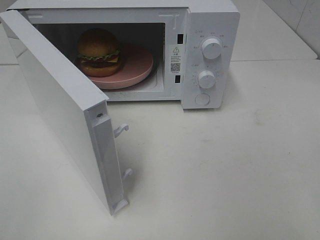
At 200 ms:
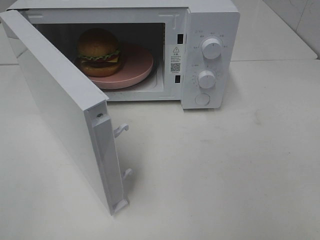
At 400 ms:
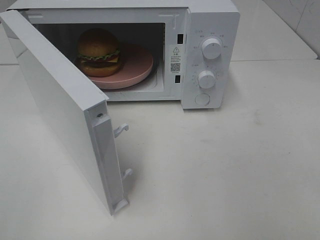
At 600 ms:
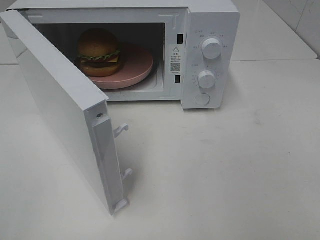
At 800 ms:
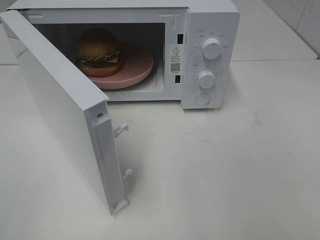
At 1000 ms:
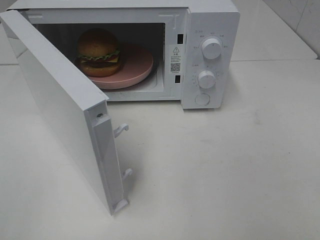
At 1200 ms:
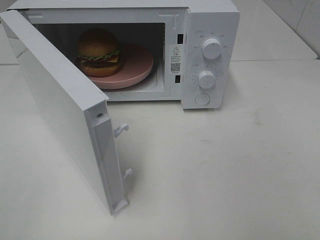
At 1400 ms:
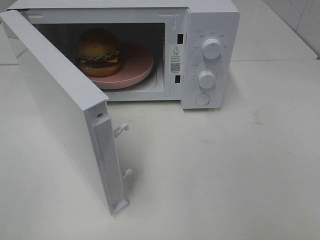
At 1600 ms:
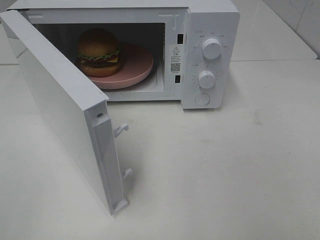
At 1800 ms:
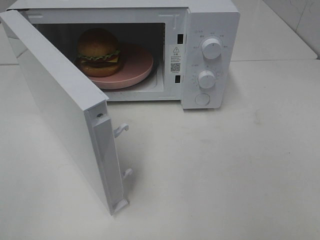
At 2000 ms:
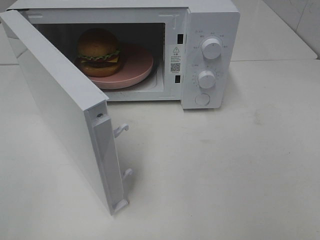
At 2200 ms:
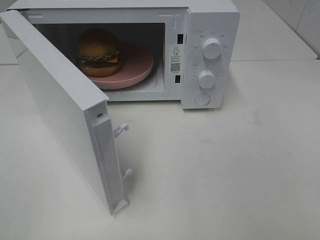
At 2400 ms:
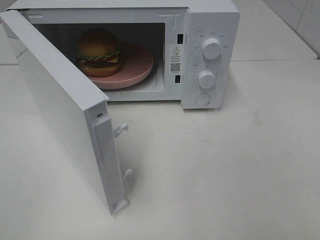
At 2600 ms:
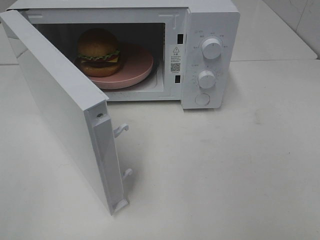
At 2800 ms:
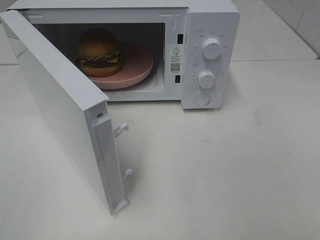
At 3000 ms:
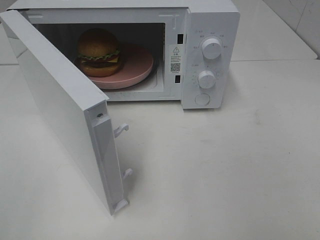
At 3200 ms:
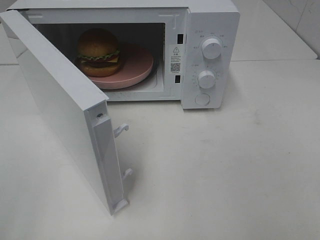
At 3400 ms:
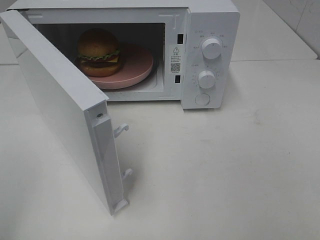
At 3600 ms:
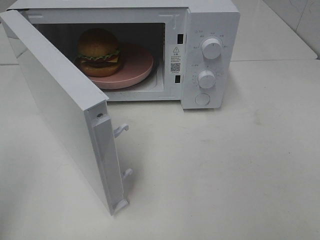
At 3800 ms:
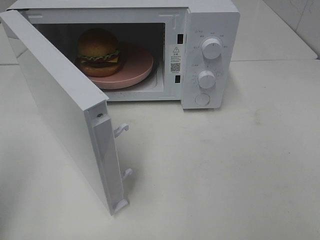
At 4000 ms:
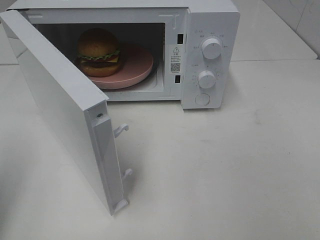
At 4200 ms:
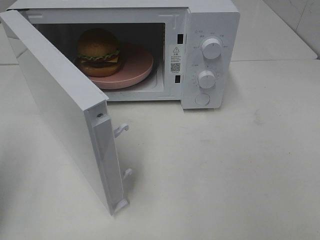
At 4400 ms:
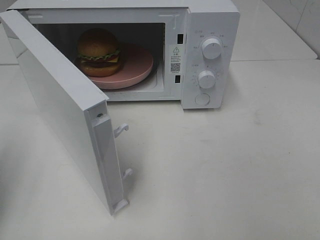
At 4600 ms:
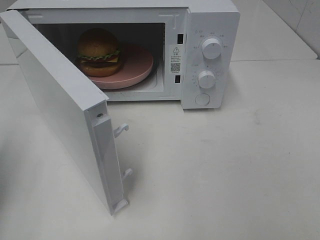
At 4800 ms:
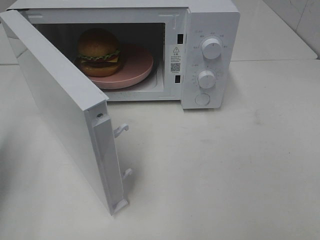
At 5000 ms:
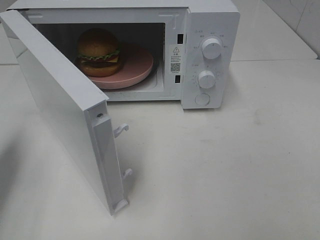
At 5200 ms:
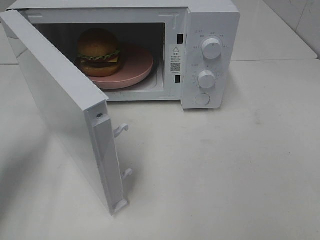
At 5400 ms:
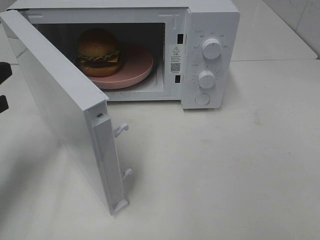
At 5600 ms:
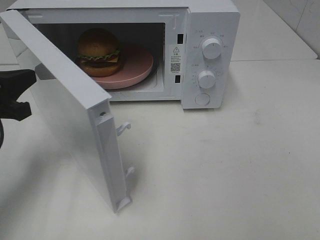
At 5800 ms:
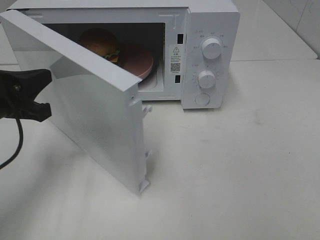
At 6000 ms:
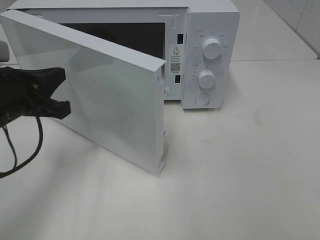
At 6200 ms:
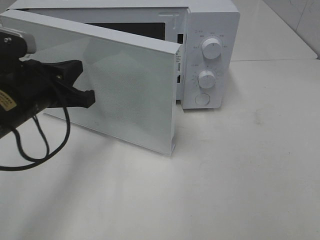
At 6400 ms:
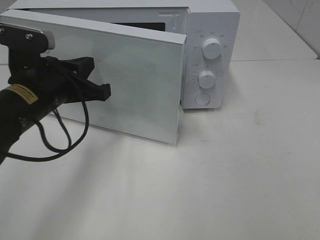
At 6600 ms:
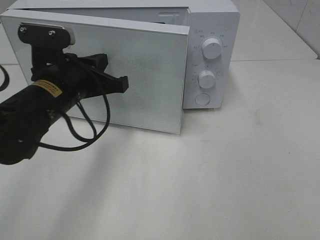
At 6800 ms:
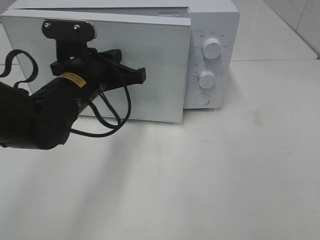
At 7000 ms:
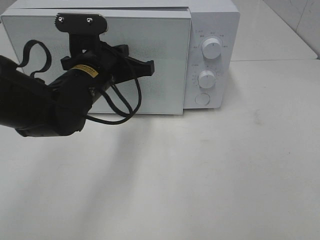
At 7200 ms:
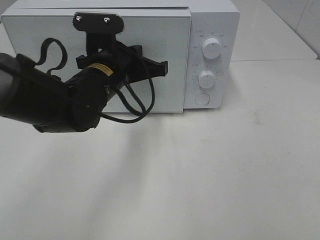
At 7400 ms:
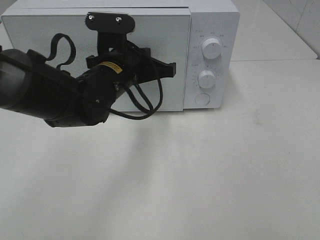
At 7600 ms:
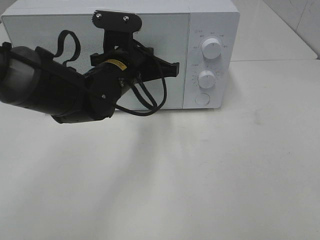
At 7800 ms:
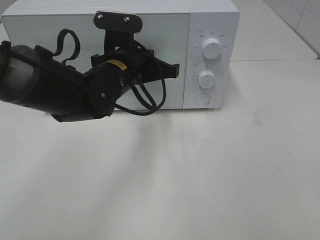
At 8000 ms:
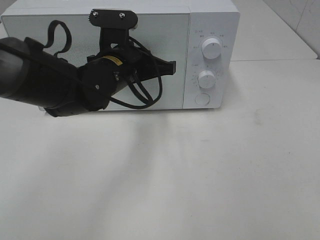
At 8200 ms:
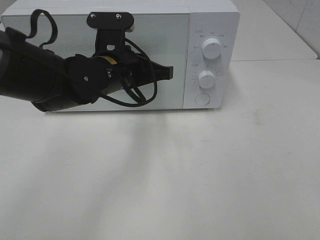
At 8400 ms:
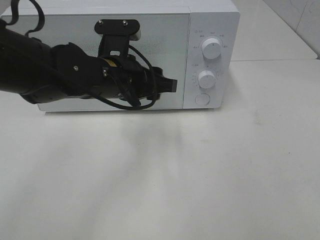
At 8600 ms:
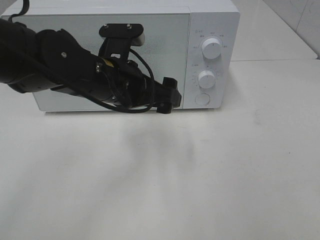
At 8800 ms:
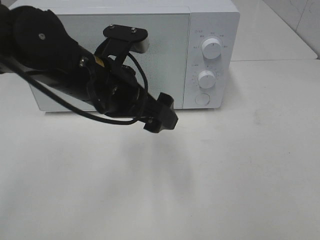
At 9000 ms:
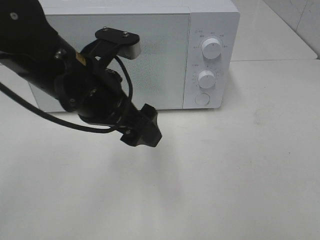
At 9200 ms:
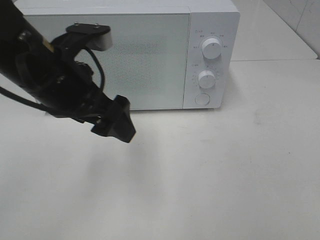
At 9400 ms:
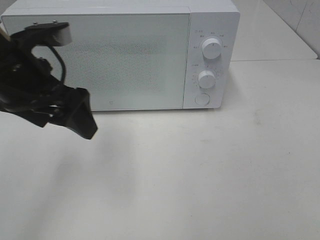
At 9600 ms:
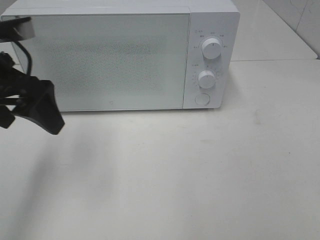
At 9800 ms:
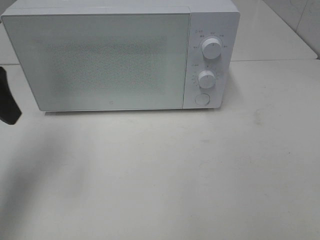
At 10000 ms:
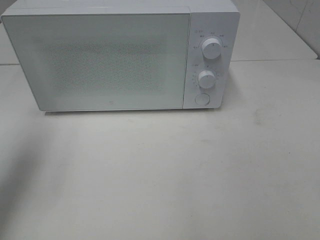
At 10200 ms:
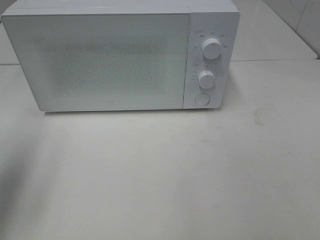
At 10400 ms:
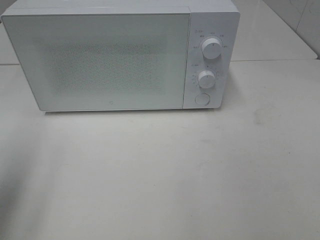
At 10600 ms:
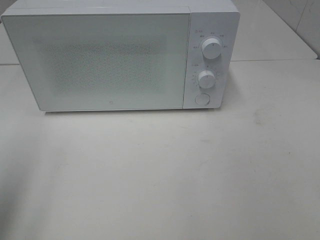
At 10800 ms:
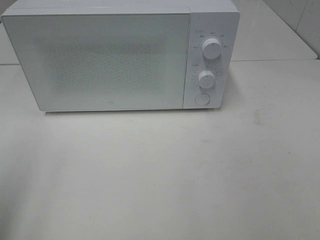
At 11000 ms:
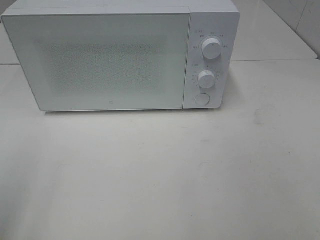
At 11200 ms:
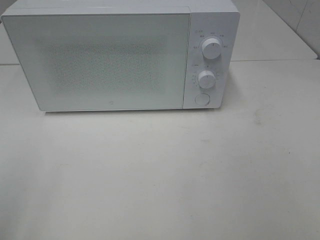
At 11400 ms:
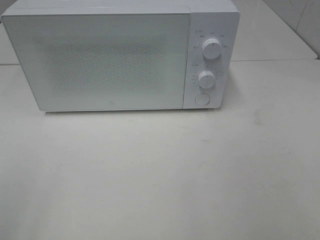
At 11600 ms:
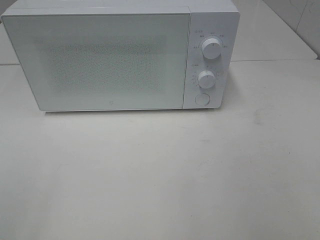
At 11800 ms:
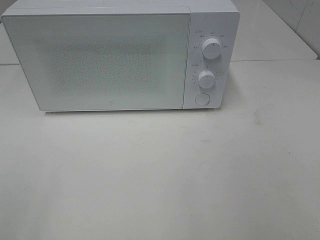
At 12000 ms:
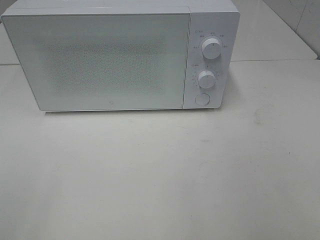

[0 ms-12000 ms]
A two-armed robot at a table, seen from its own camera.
Task of the whole recording: Heat the burger.
Step, 0 ms to 8400 ms: Left hand: close the microwave door.
1600 ms to 3000 ms: Both grippers stay about where they are.
3000 ms to 4400 ms: The left gripper goes some 15 cm forward, and closes its fingers.
4400 ms to 6000 ms: The left gripper shifts about 15 cm to the right, forward and downward.
6000 ms to 7600 ms: The left gripper shifts approximately 20 cm to the right and forward.
7600 ms to 9000 ms: The left gripper moves backward and upward, roughly 10 cm, and opens its fingers.
9000 ms to 10400 ms: The left gripper heads to the left, covering approximately 25 cm.
10400 ms to 12000 ms: The left gripper moves backward, some 15 cm.

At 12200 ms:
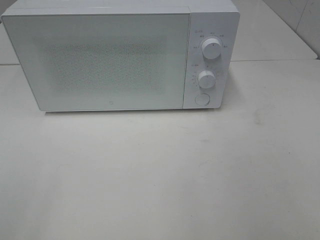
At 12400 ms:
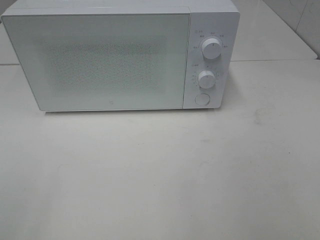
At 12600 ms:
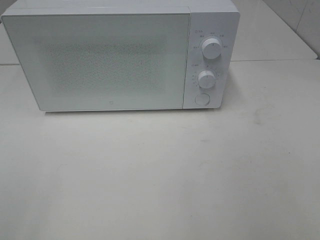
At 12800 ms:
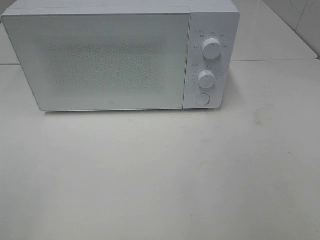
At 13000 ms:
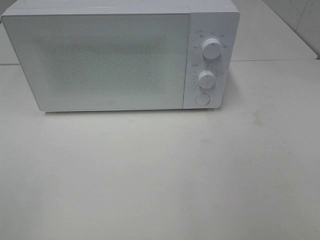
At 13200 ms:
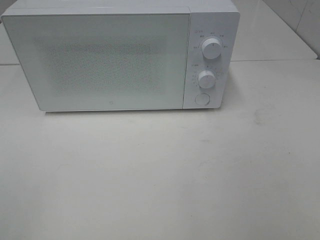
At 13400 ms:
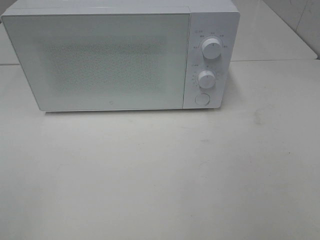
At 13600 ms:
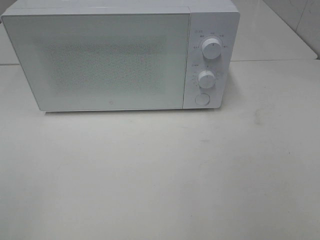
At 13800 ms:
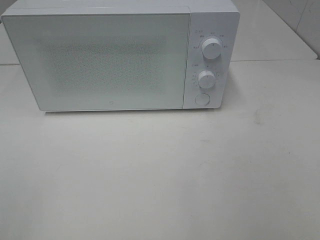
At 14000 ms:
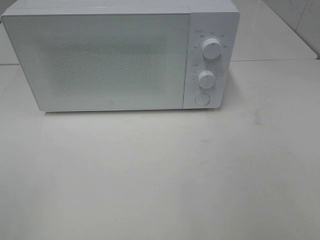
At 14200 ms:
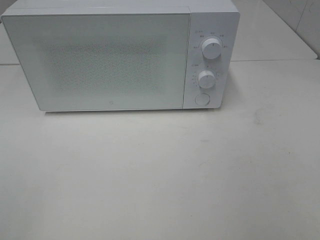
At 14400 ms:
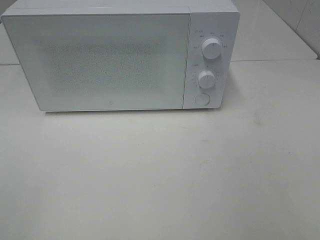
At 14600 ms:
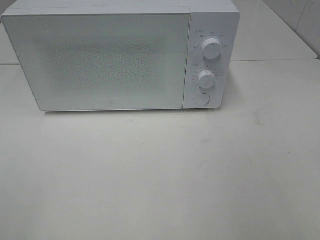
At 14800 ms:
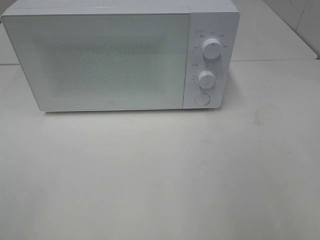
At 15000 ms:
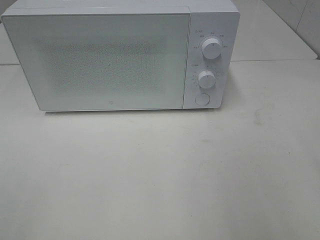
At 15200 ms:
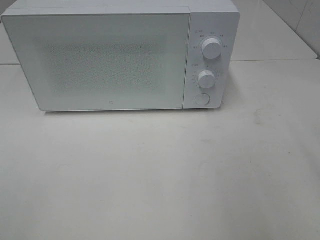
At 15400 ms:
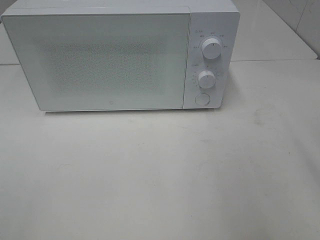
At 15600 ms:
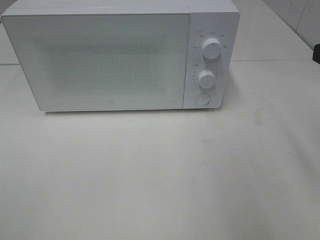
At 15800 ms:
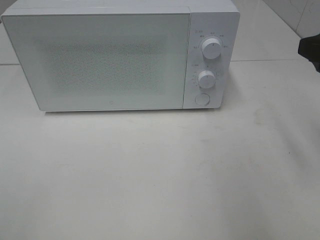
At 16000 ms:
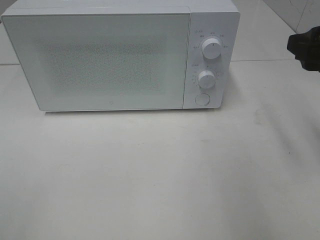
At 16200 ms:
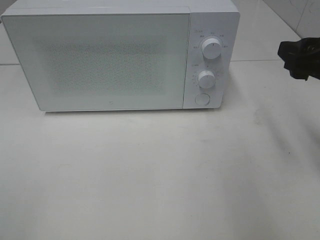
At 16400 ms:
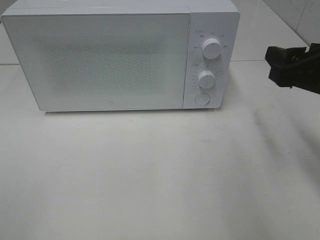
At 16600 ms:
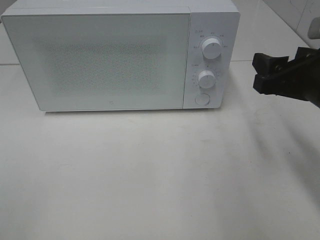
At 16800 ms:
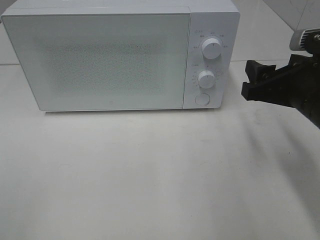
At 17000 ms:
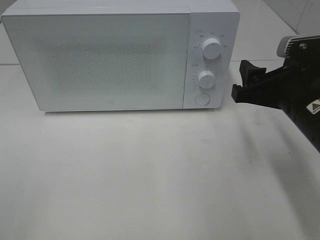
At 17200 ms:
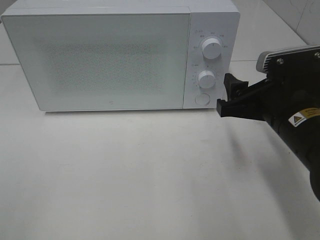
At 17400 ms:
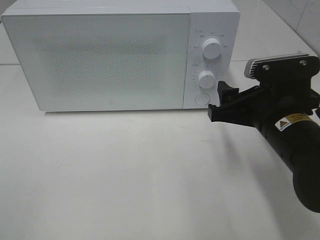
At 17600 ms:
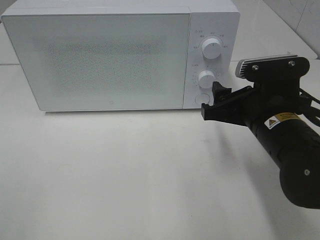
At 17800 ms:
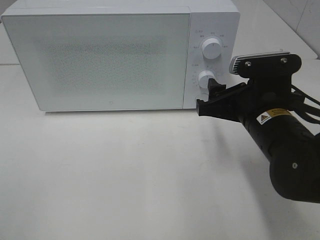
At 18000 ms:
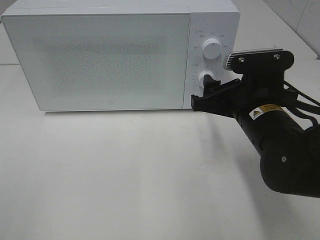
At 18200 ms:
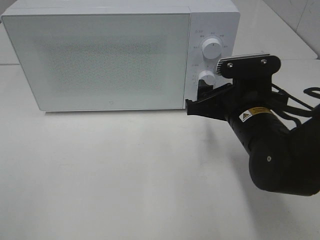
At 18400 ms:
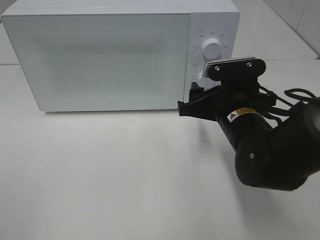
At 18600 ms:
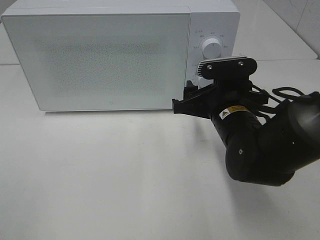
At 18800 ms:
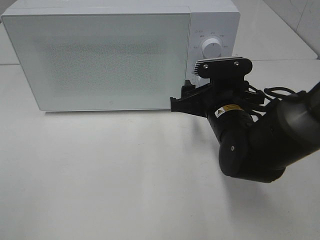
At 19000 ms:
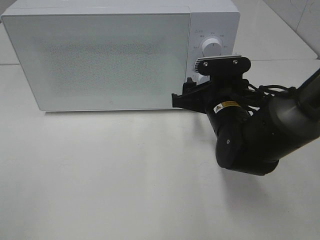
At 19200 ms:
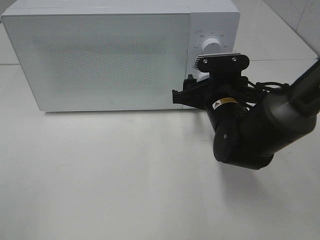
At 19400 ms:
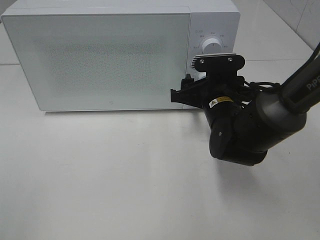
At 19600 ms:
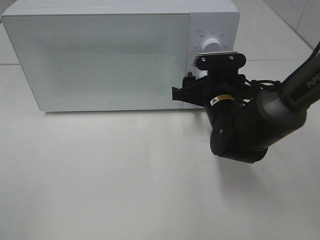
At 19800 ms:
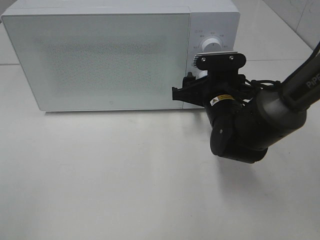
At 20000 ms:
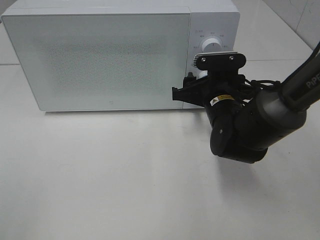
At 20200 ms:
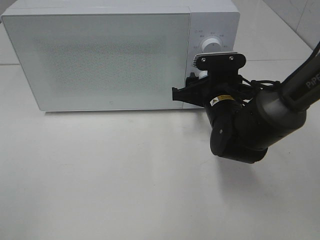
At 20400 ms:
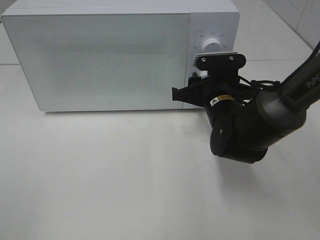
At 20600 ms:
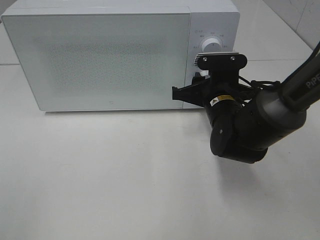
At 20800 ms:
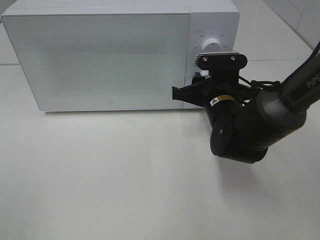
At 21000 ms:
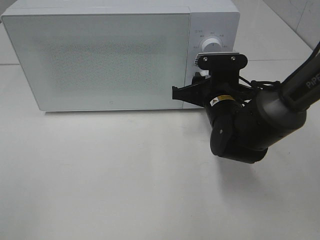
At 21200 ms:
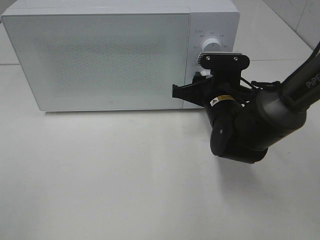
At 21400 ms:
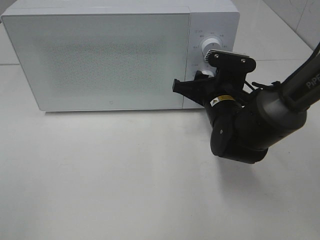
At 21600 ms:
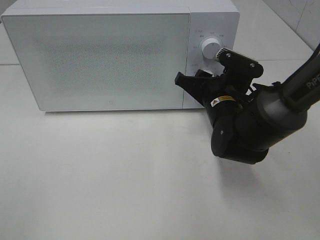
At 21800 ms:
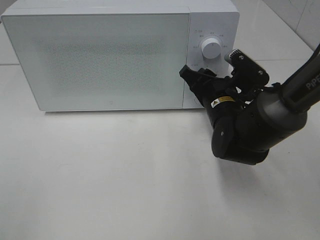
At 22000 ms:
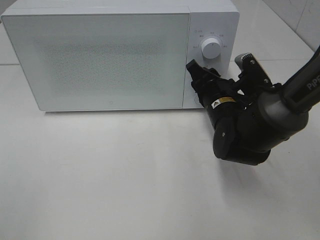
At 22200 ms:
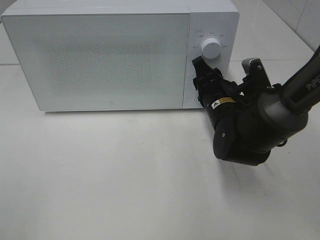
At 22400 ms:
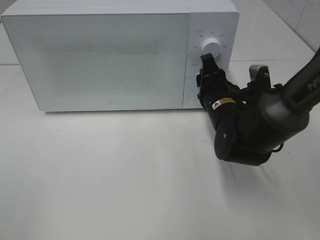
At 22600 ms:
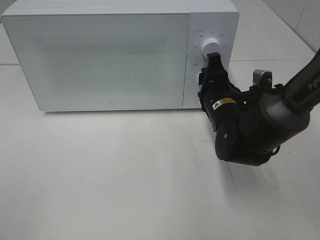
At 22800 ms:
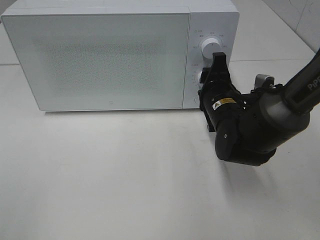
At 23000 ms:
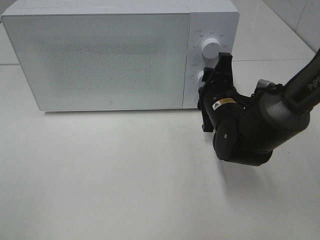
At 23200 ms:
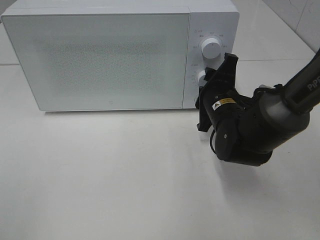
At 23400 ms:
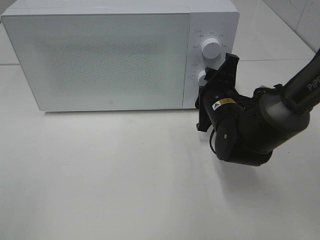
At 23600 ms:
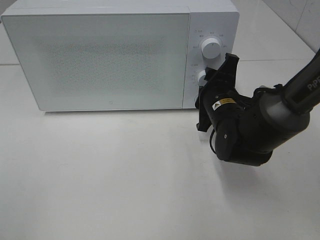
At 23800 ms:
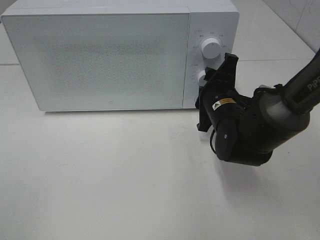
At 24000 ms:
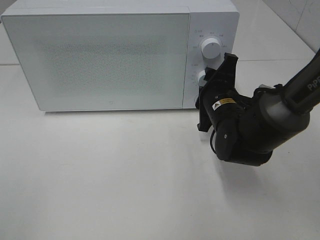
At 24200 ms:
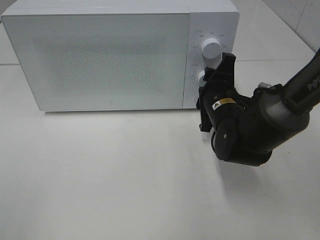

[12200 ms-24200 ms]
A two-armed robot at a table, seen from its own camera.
Task of the whole recording: Heat the burger.
15200 ms to 16600 ms: The right gripper goes roughly 15 cm downward and forward.
16600 ms to 18200 ms: The right gripper shifts approximately 10 cm to the left and downward.
18200 ms to 19800 ms: The right gripper is displaced forward by roughly 5 cm.
19800 ms to 21200 ms: The right gripper closes.
